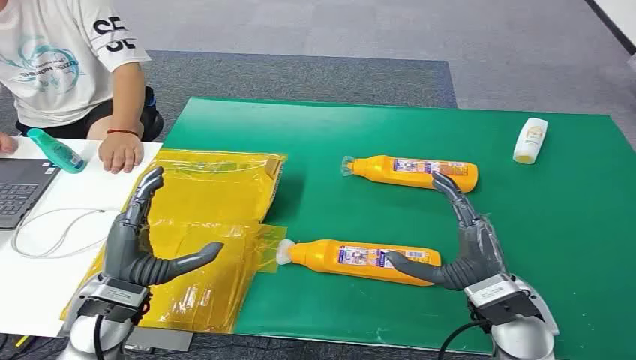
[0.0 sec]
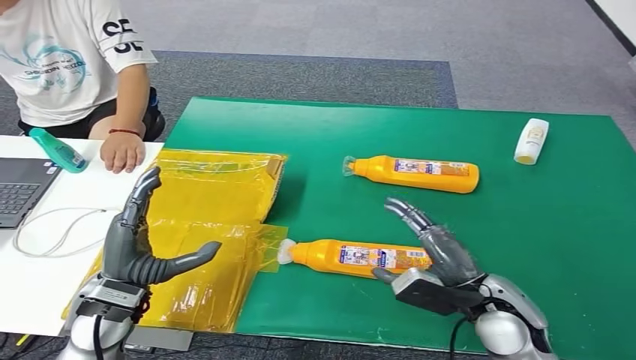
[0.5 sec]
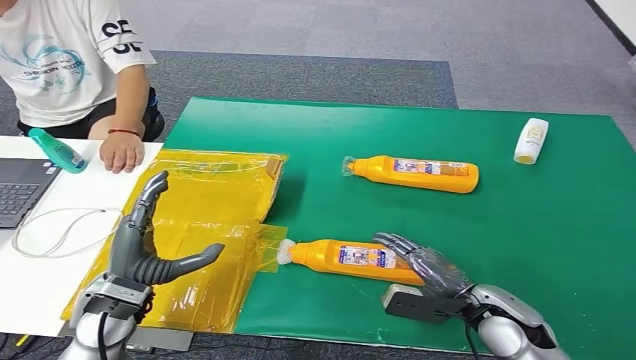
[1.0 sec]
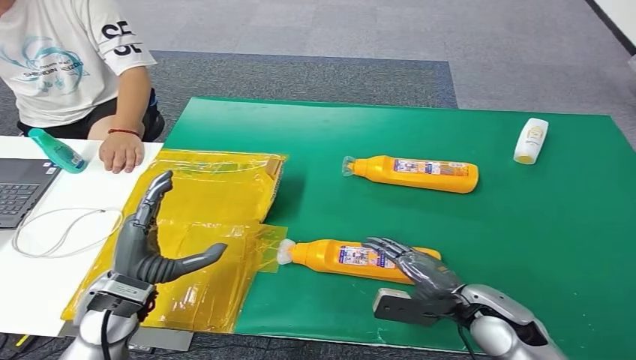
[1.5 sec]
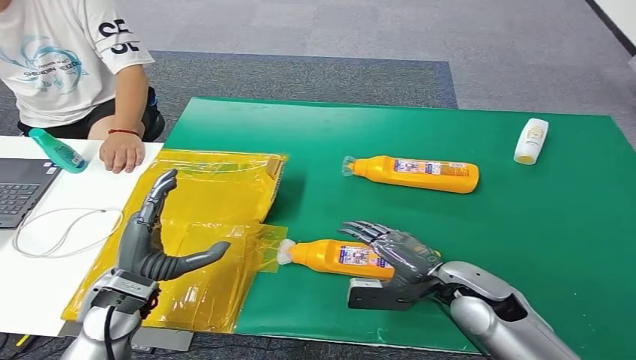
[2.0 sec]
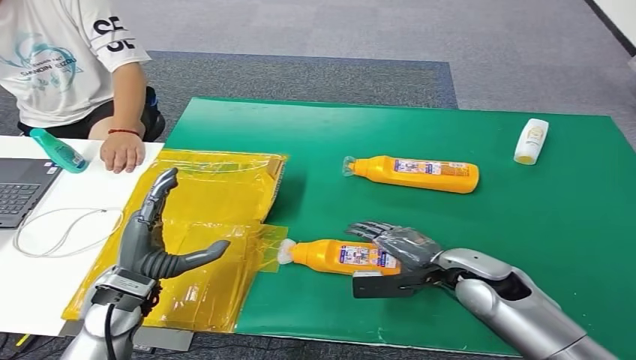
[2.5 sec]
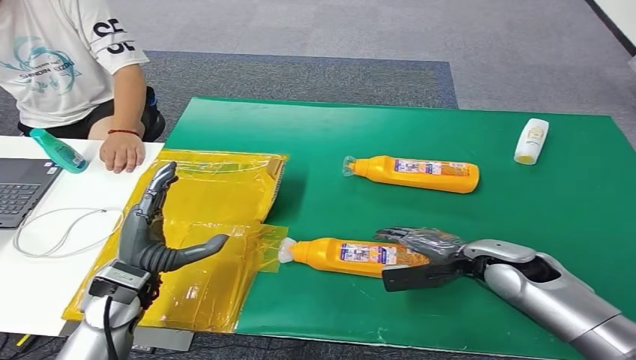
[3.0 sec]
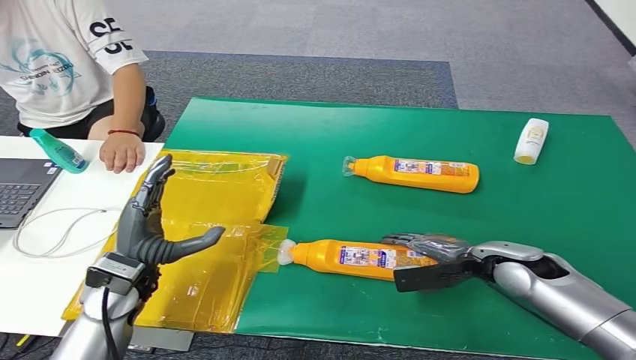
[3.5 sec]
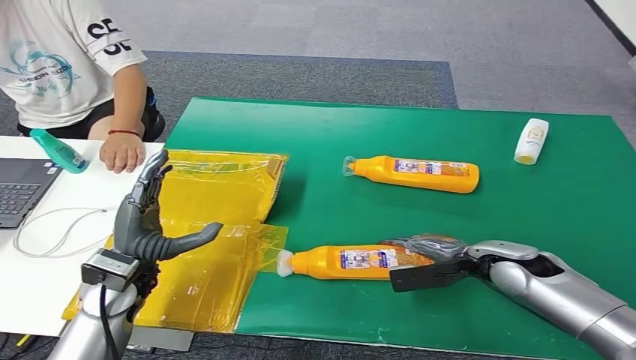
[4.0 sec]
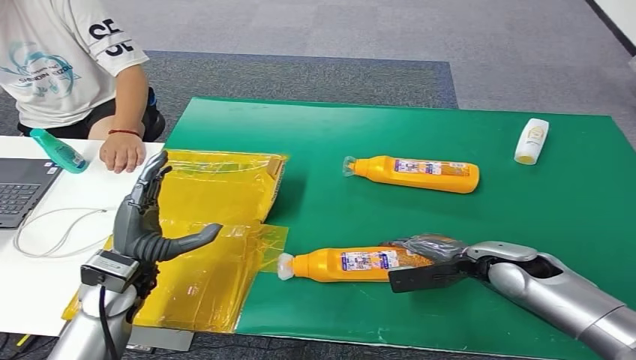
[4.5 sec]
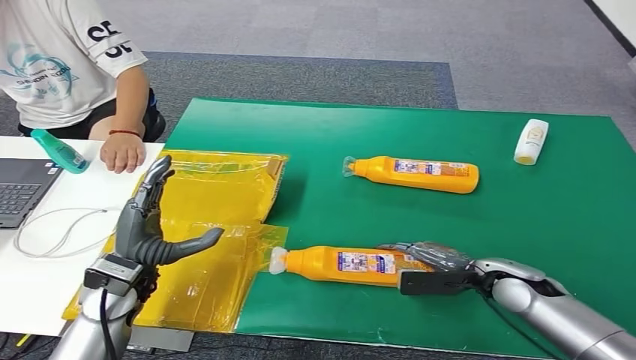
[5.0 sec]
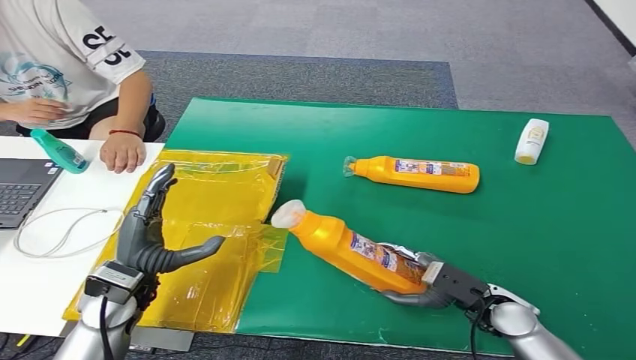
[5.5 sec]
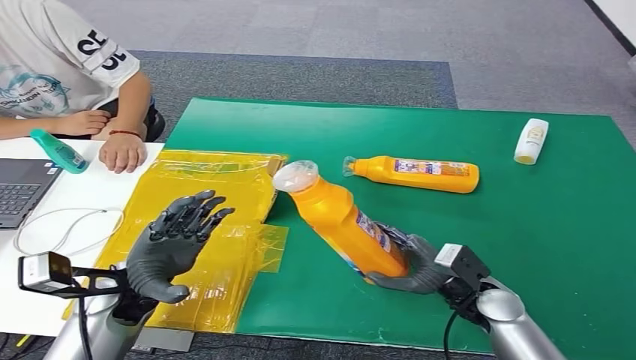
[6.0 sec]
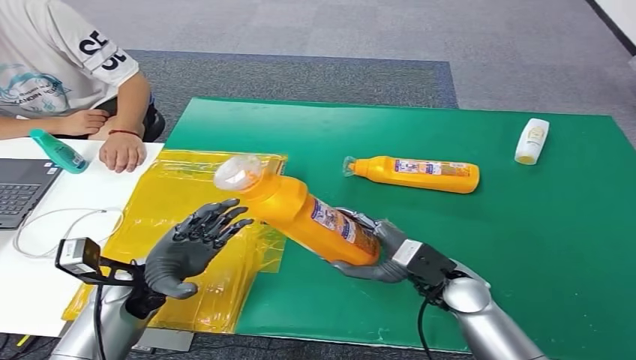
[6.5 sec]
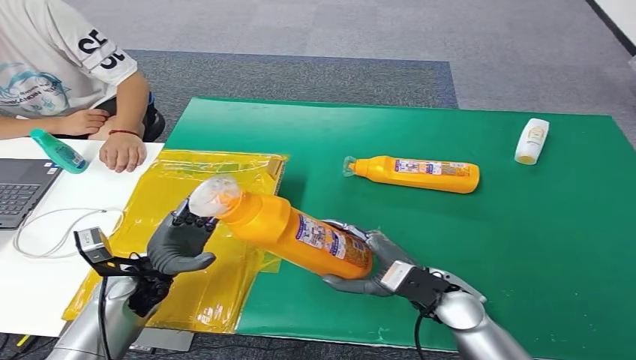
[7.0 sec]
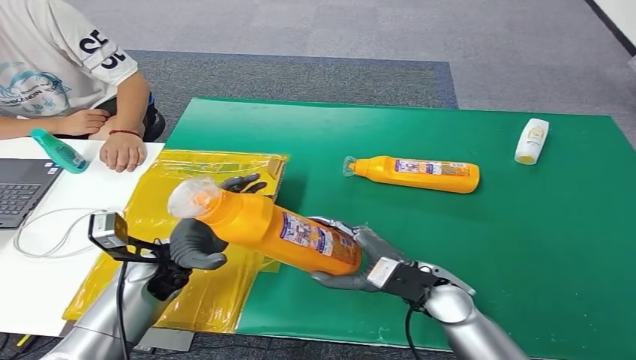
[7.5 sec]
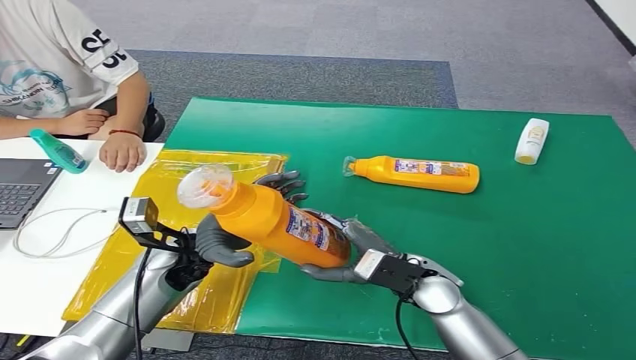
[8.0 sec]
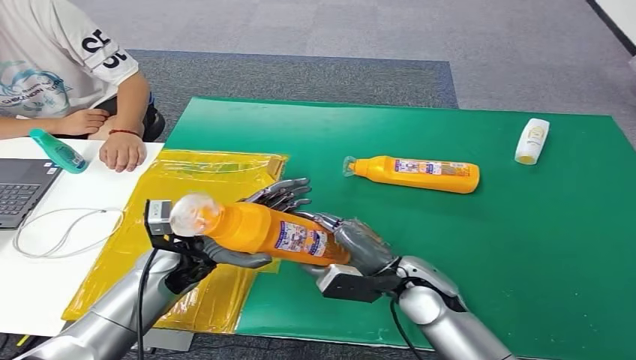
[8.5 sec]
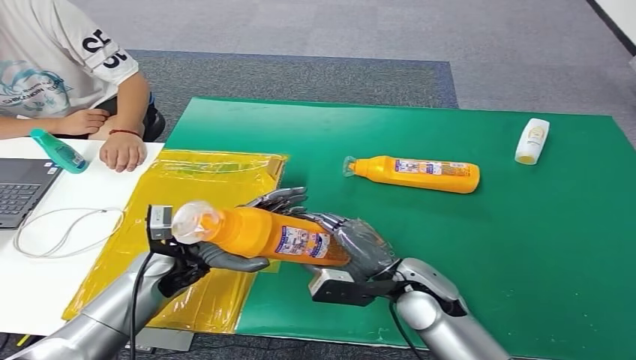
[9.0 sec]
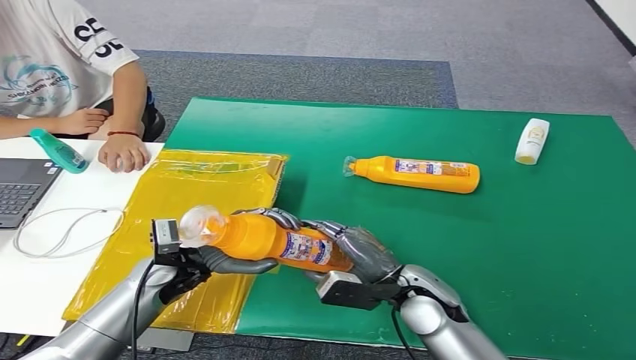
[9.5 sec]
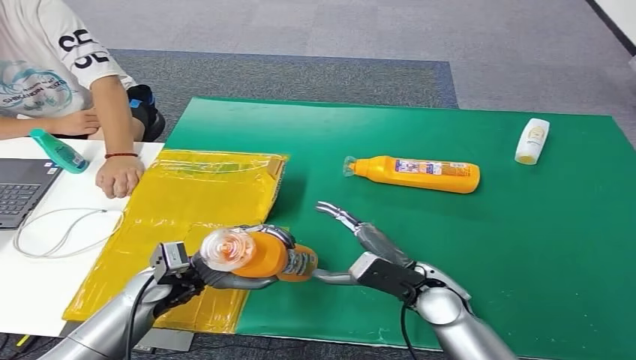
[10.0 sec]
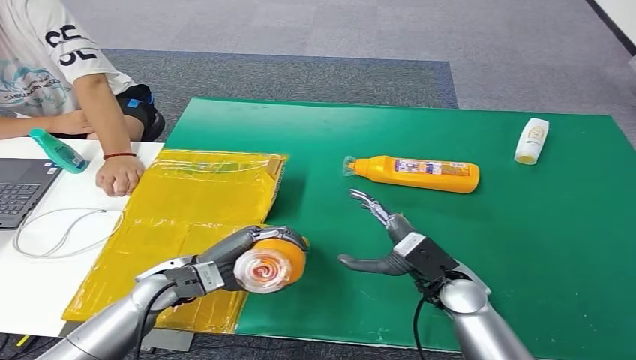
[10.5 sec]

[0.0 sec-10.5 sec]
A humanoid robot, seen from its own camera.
Step, 0.0 sec to 5.5 sec: Pick up the bottle from the table.
2.0 sec to 4.0 sec: The right hand travels to the right and forward by about 10 cm.
6.5 sec to 8.5 sec: The right hand moves about 5 cm, while the left hand heads to the right, covering some 5 cm.
8.5 sec to 10.5 sec: The right hand changes place by roughly 5 cm.

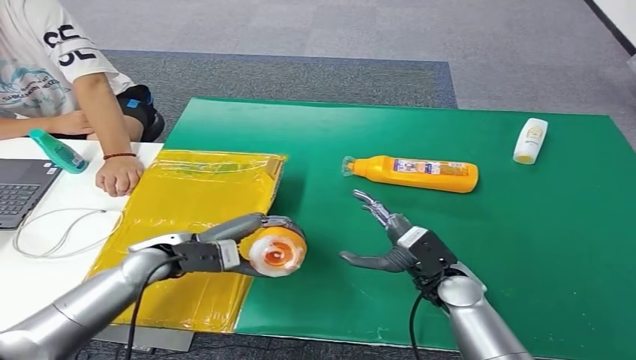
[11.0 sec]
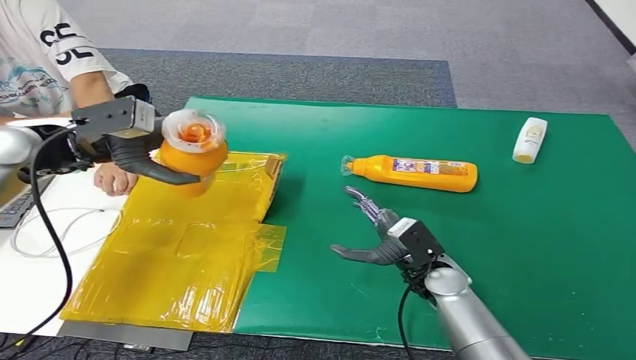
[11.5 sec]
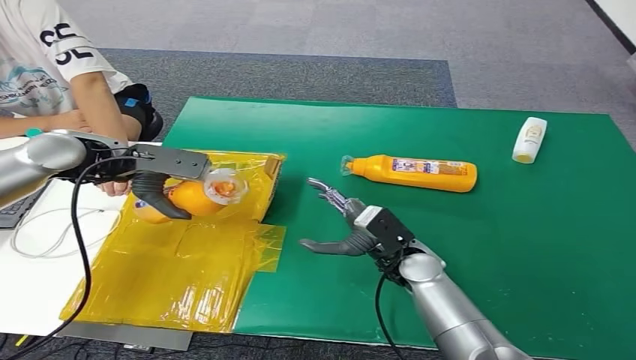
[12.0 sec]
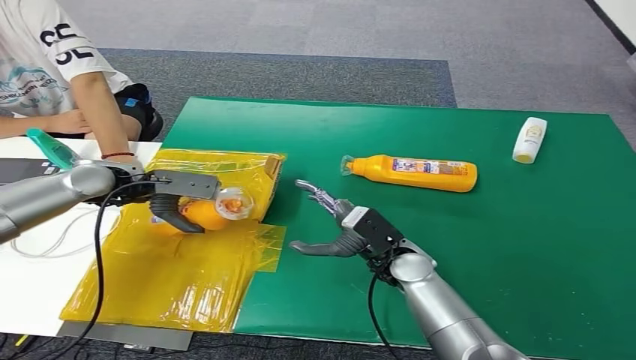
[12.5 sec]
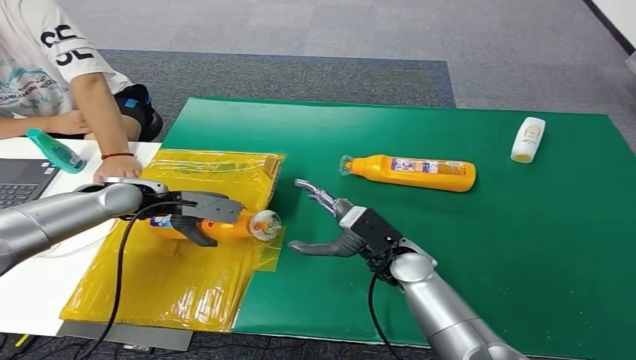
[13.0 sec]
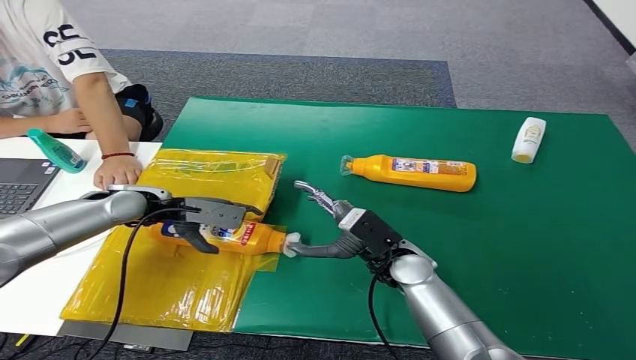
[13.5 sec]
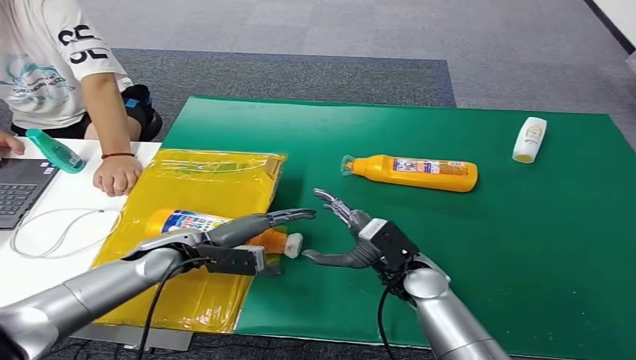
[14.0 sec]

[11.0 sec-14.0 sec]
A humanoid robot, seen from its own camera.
Step, 11.0 sec to 14.0 sec: Turn the bottle to the front side.
